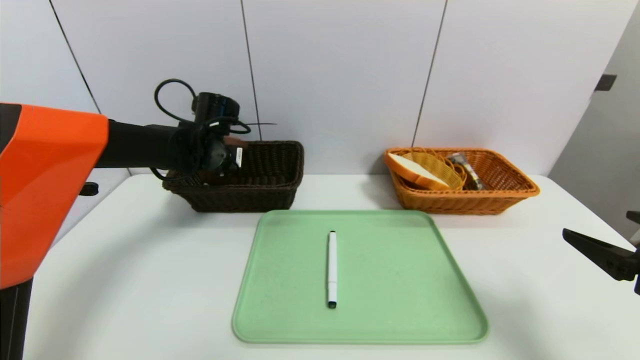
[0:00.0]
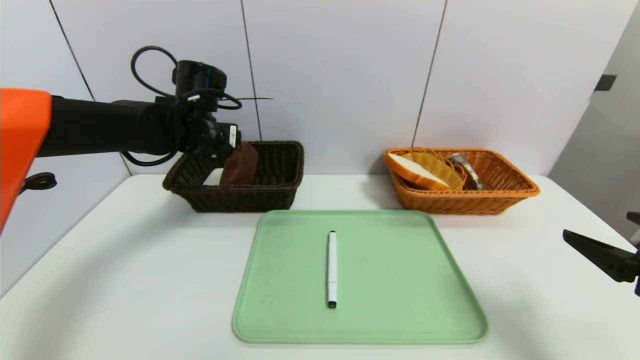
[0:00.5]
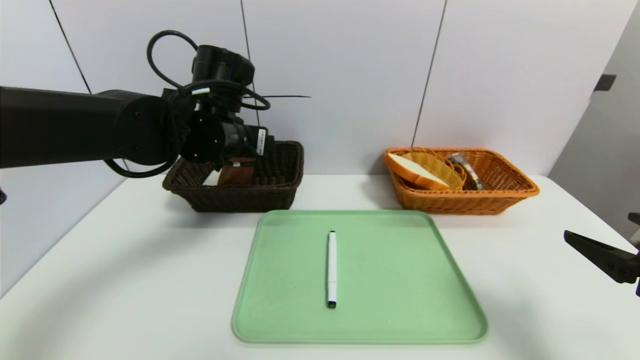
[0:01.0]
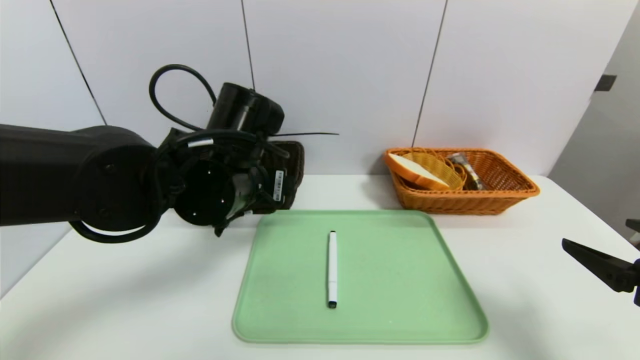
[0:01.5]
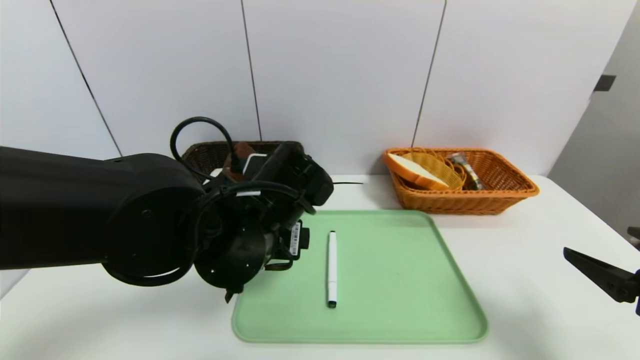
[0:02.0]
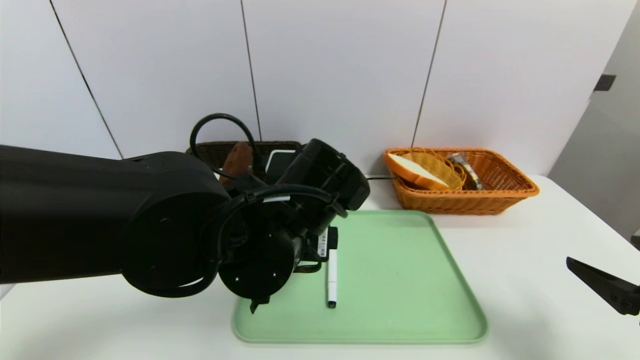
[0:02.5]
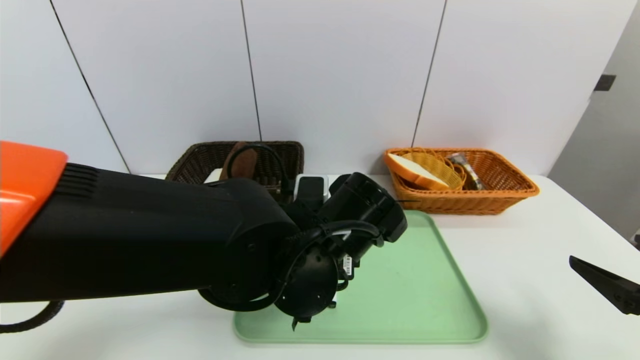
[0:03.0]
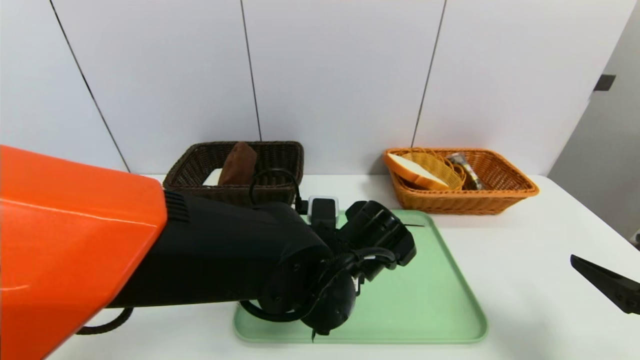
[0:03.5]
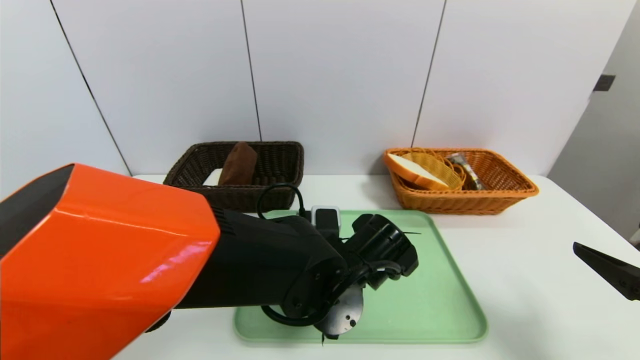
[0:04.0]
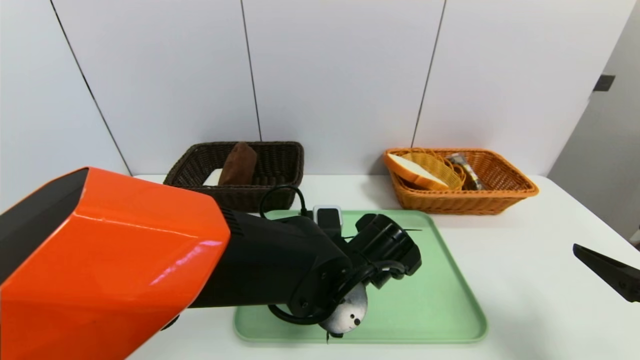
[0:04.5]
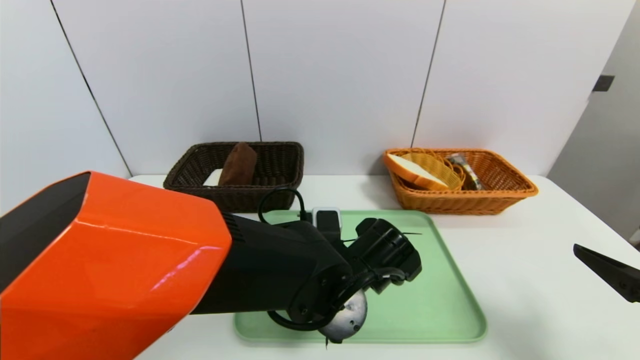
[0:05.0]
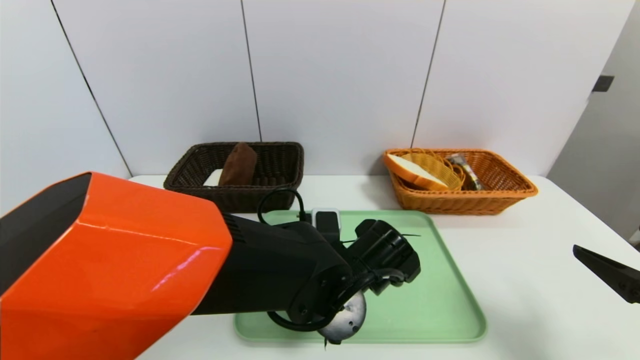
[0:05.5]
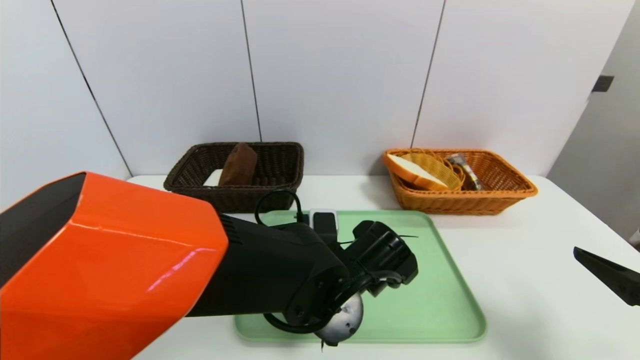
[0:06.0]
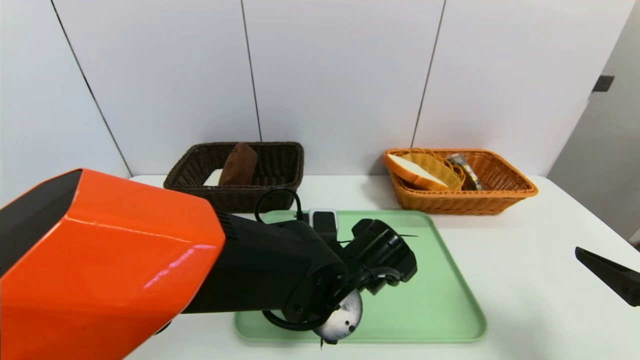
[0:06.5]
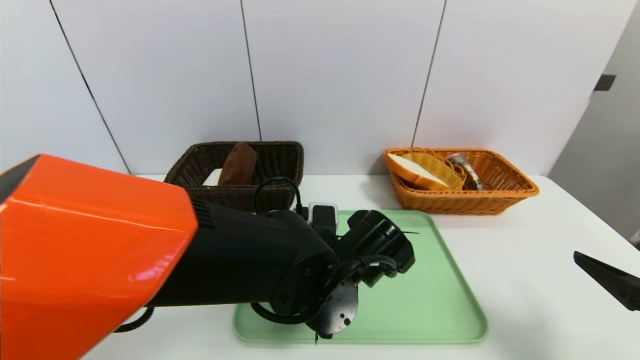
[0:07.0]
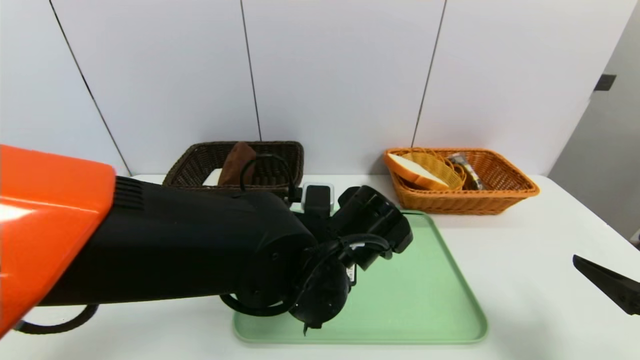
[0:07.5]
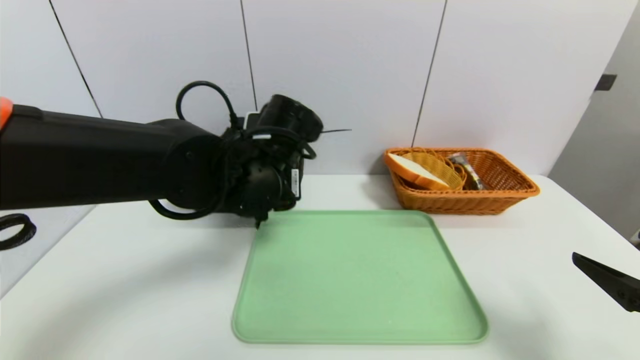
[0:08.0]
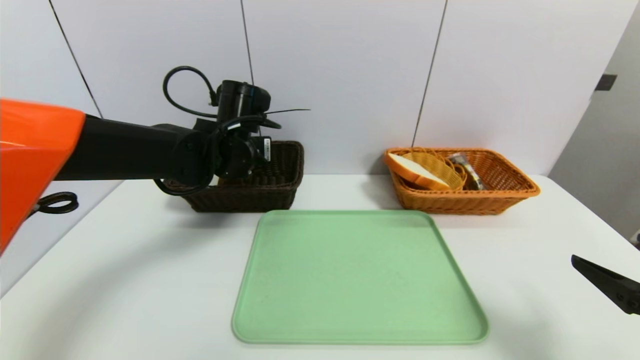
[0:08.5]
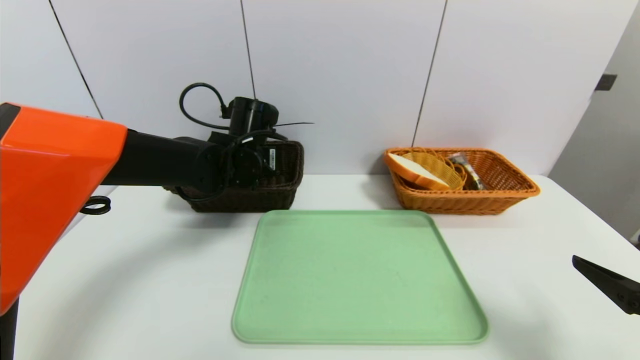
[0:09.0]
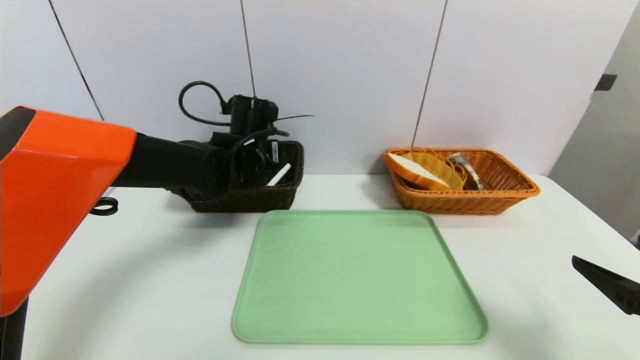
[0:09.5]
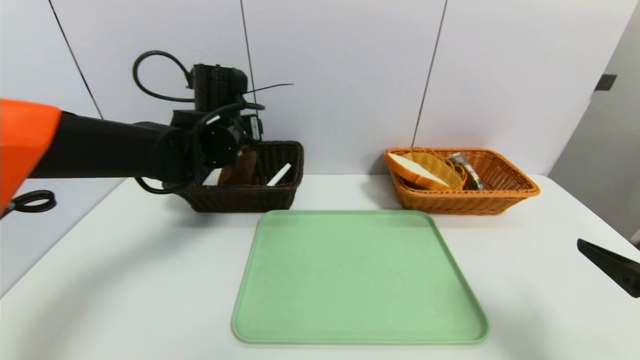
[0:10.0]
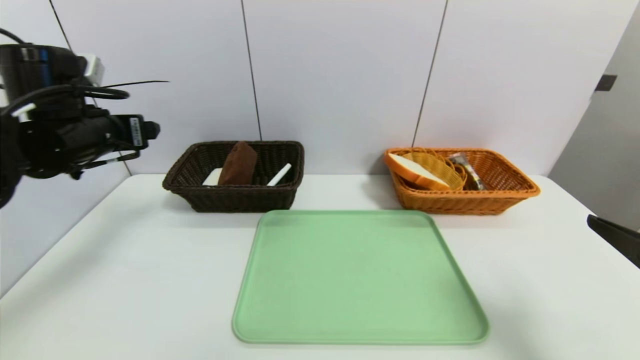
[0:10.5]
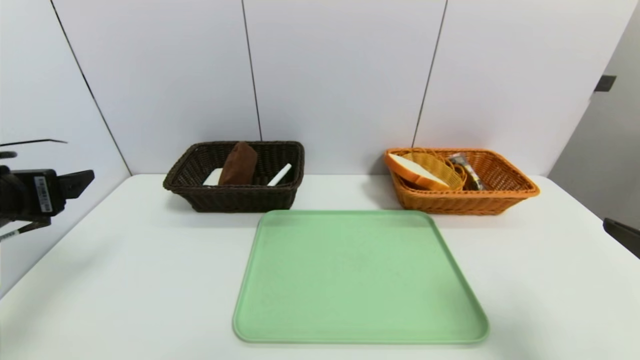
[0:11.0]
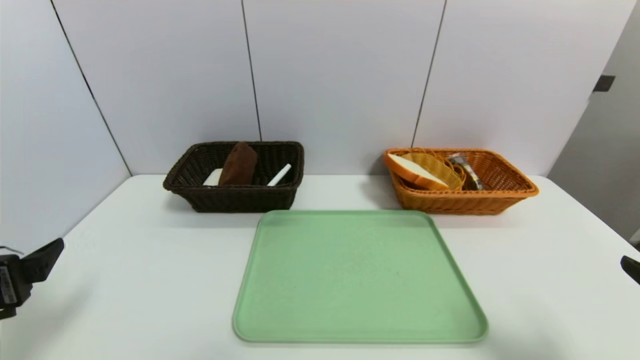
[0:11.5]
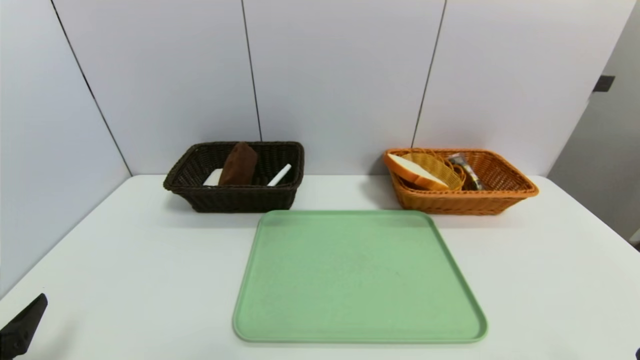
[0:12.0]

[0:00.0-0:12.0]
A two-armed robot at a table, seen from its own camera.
Task of the whole recording: place the food in the right basket with the right gripper, and place the non food items in the left basket with the left gripper.
Step, 0:01.0 to 0:09.5: Grasp the black marker and put it in the left basket.
0:00.0 to 0:02.0: The left gripper goes about 25 cm backward and to the right.
0:02.0 to 0:04.0: The left gripper moves to the right and downward, some 10 cm.
0:04.0 to 0:06.0: The left gripper closes its fingers.
0:06.0 to 0:08.0: The left gripper travels upward, to the left and forward by roughly 15 cm, and closes.
0:08.0 to 0:10.0: The left gripper goes about 10 cm forward and to the left, and opens up.
0:10.0 to 0:12.0: The left gripper travels backward and to the left by approximately 35 cm, while the right gripper heads backward, covering approximately 10 cm.

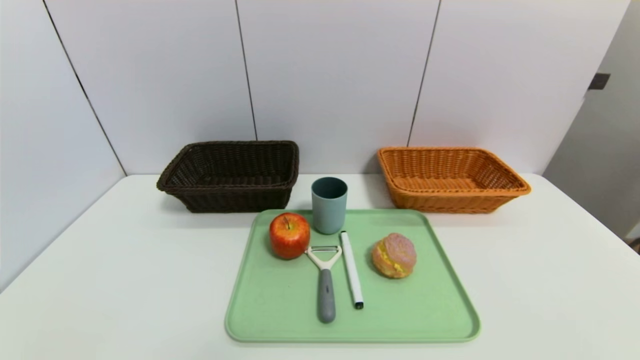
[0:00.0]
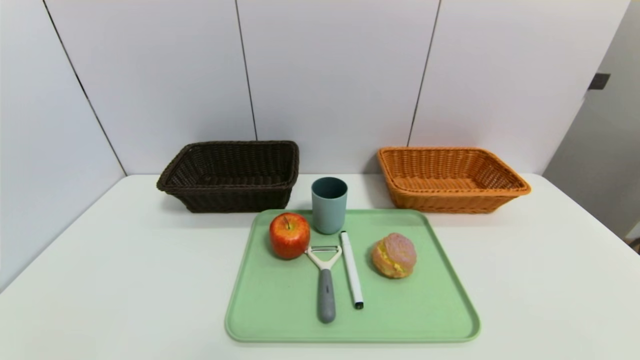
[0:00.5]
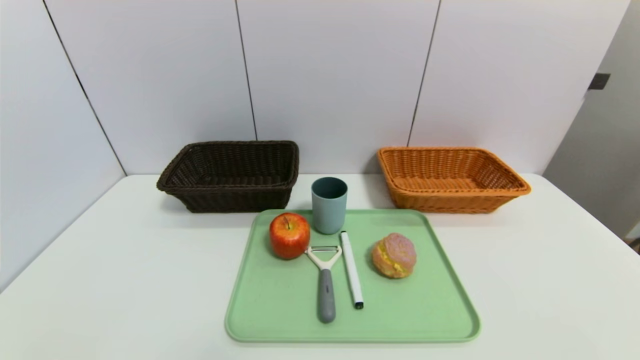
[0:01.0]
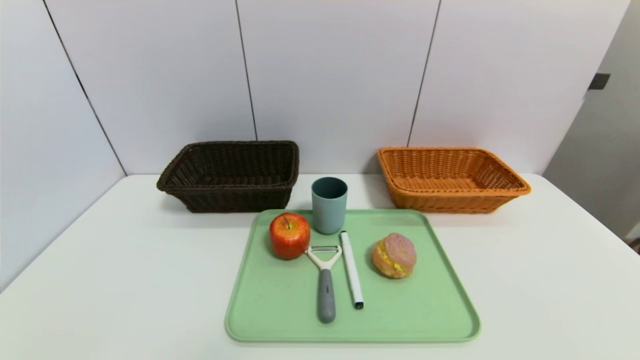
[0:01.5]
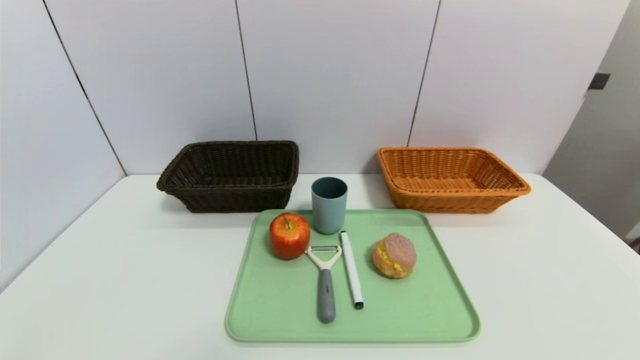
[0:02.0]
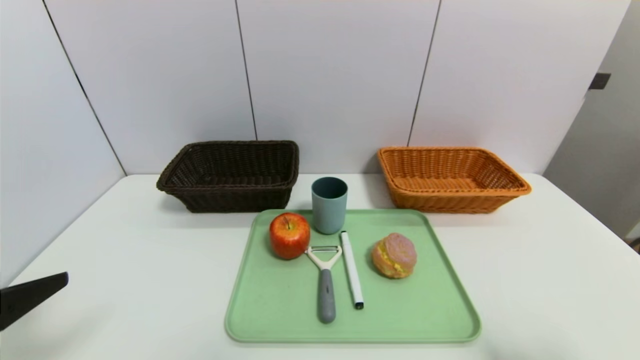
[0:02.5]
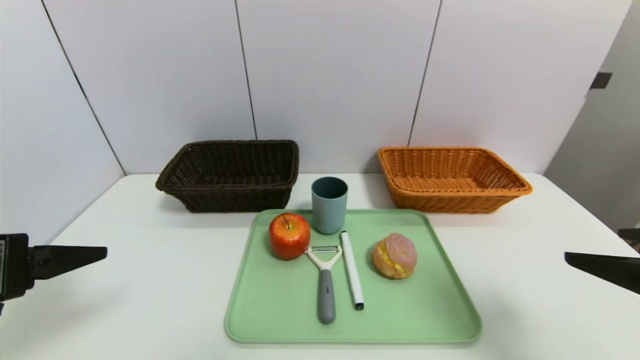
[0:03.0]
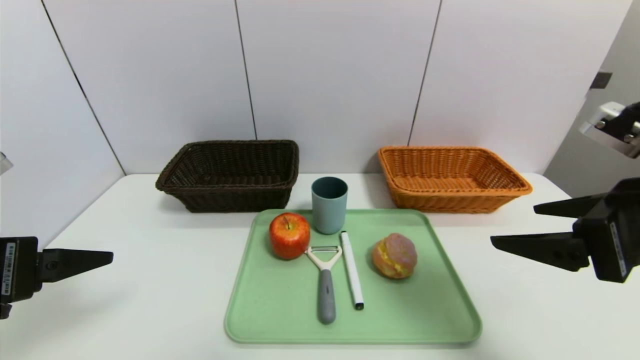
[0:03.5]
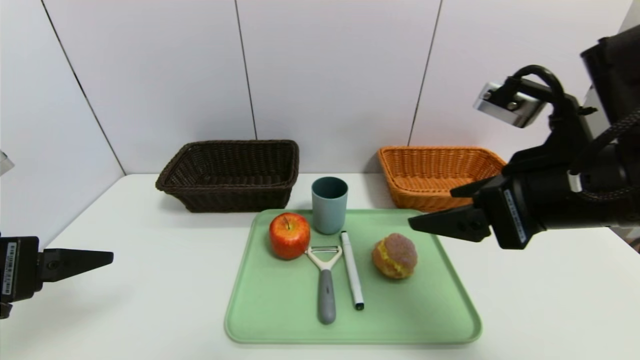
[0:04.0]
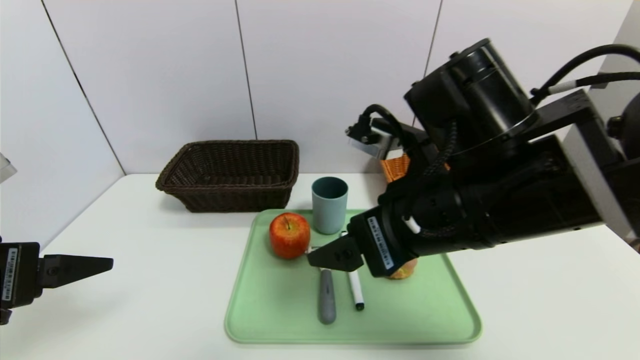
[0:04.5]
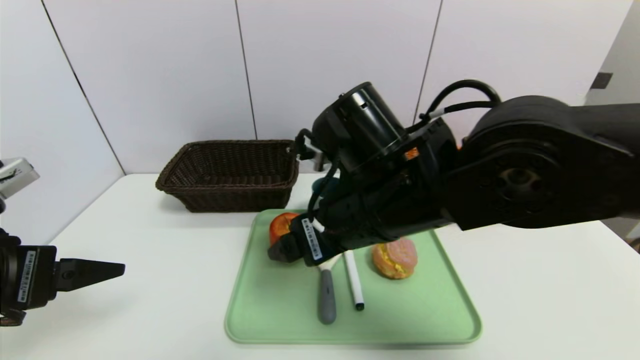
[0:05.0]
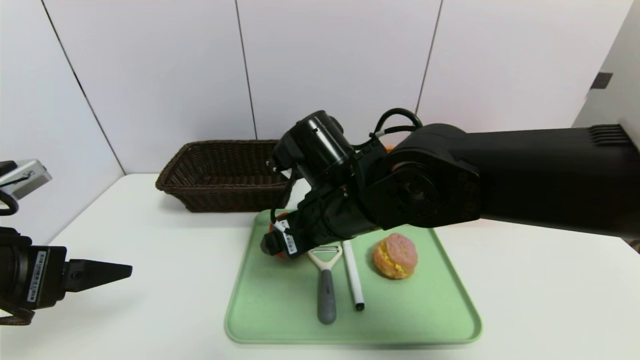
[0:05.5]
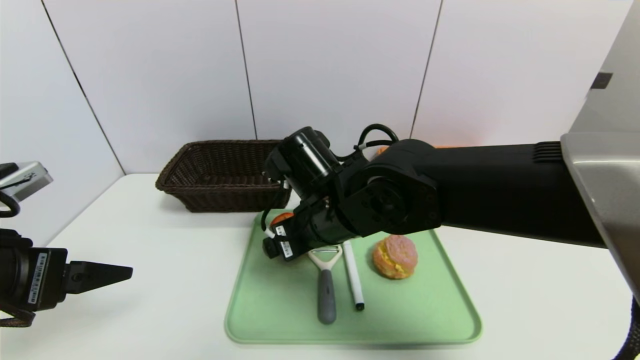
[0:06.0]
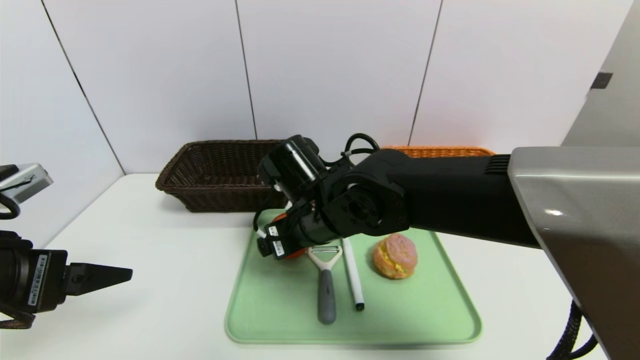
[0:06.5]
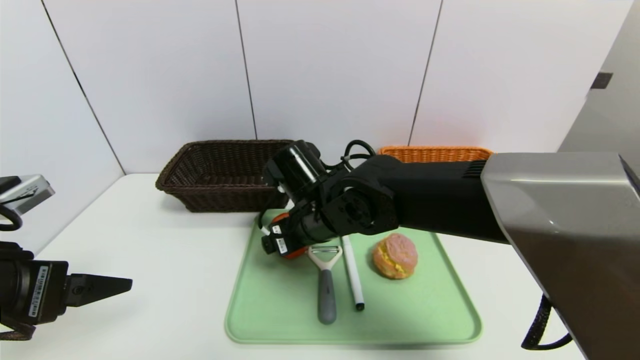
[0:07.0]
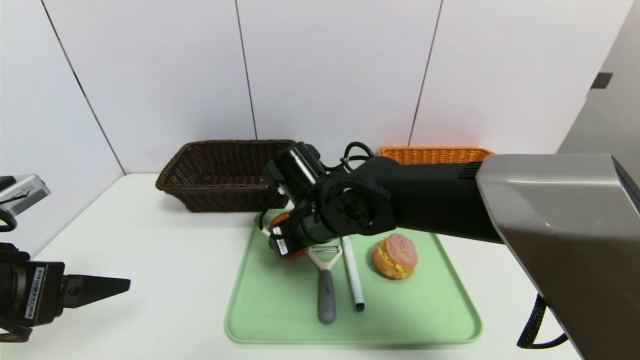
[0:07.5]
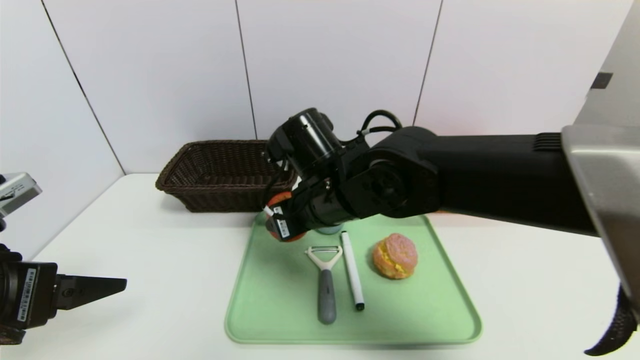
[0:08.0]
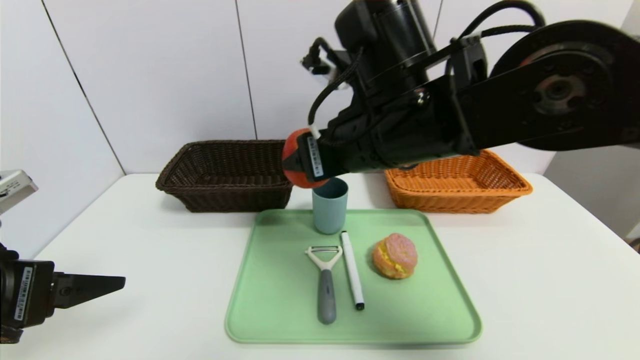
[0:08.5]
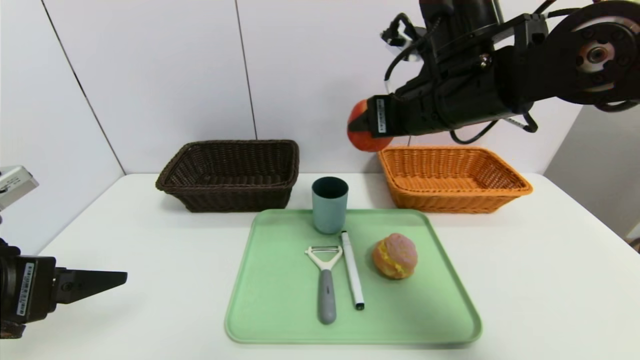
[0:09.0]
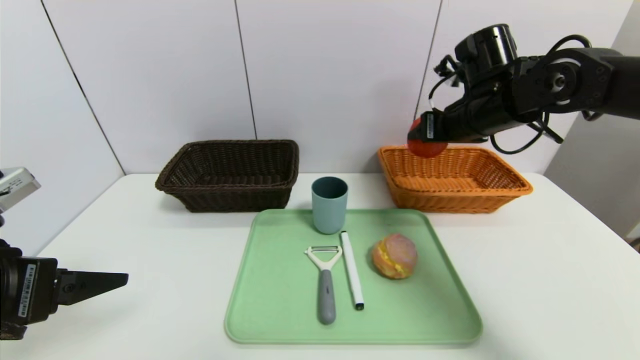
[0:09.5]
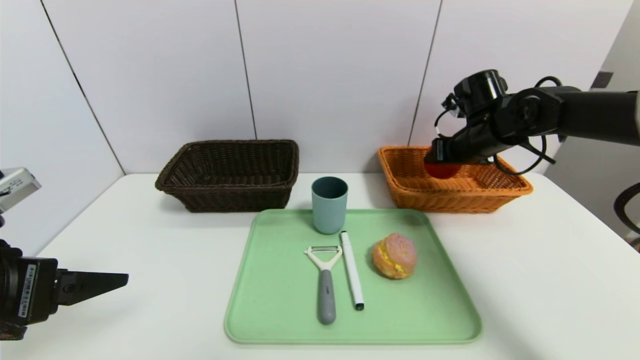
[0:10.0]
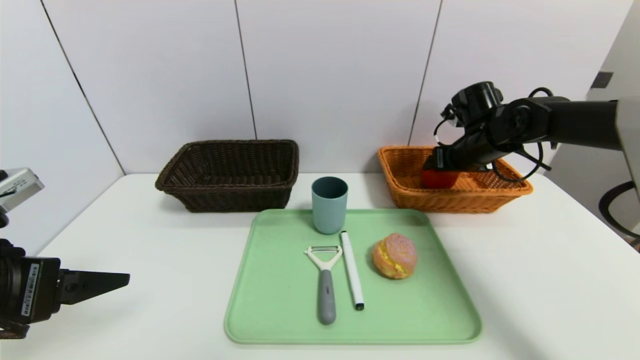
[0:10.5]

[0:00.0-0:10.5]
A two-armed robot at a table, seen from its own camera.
Task of the whole recording: place the food in the right basket with the right gripper, and place the non food items in the left basket with the left gripper.
0:02.0 to 0:04.0: The right gripper travels forward, to the left and upward by about 30 cm; the left gripper moves forward and upward, roughly 15 cm.
0:04.0 to 0:06.5: The right gripper moves to the left, downward and forward, approximately 25 cm.
0:06.5 to 0:08.5: The right gripper heads upward and to the right, covering approximately 15 cm, and closes.
0:08.5 to 0:10.5: The right gripper heads to the right, forward and downward, covering some 30 cm.
